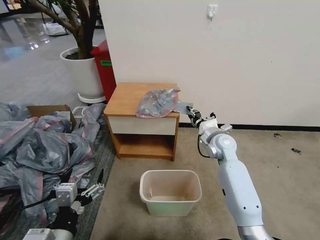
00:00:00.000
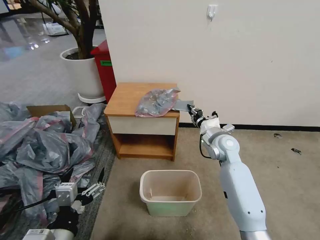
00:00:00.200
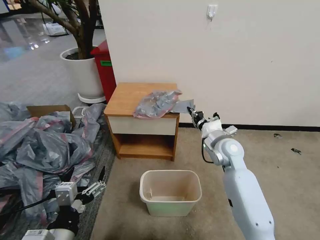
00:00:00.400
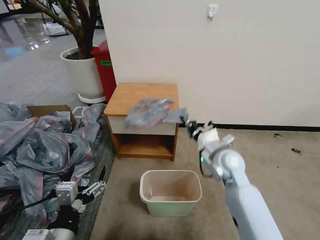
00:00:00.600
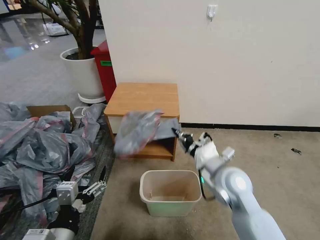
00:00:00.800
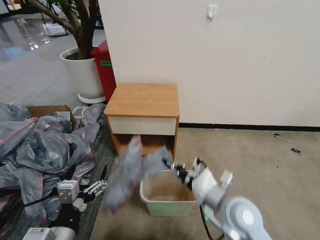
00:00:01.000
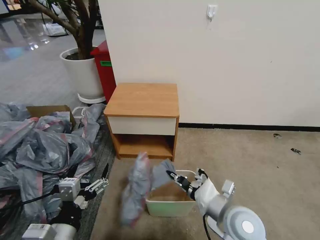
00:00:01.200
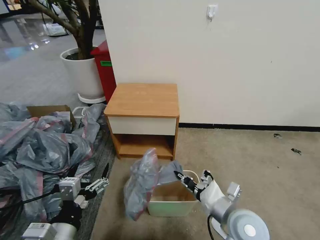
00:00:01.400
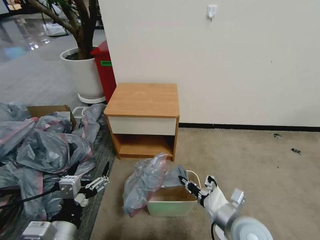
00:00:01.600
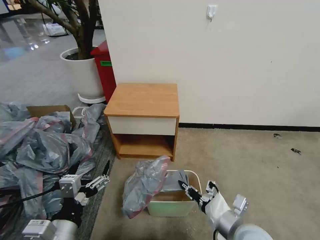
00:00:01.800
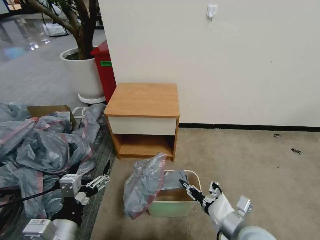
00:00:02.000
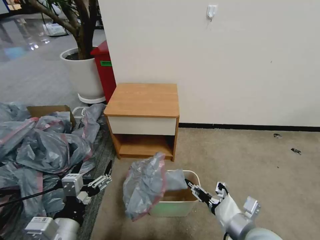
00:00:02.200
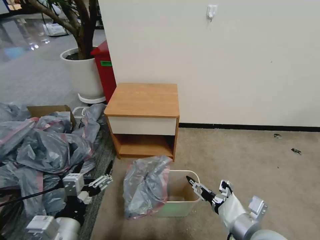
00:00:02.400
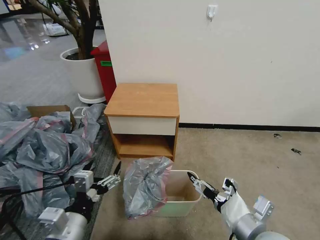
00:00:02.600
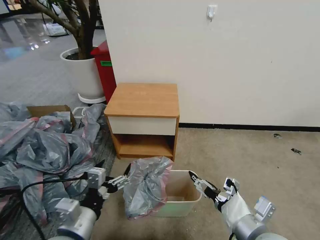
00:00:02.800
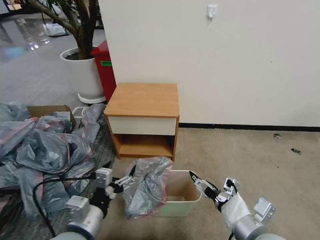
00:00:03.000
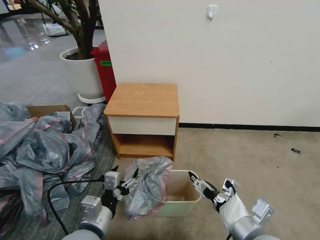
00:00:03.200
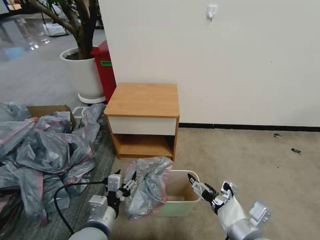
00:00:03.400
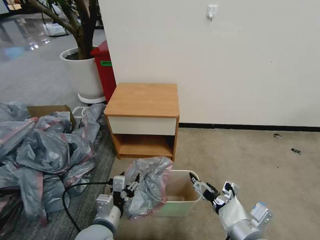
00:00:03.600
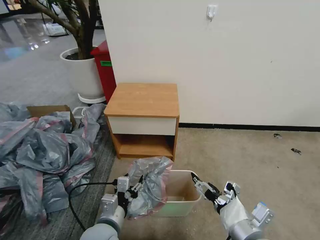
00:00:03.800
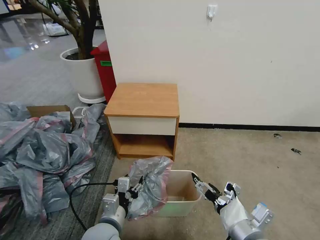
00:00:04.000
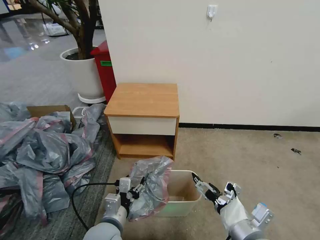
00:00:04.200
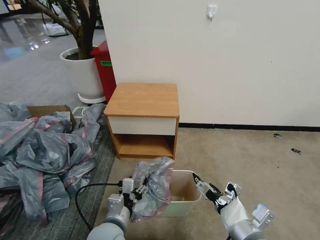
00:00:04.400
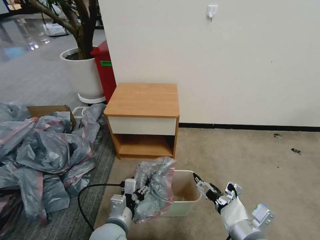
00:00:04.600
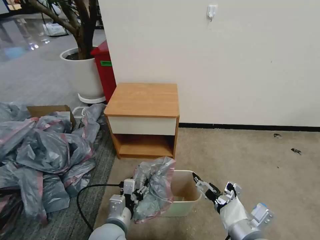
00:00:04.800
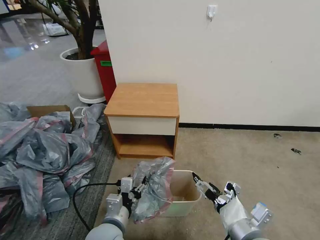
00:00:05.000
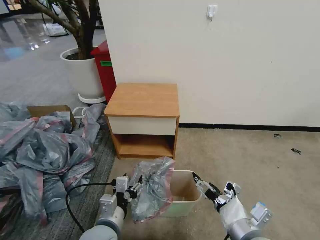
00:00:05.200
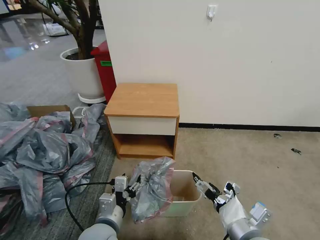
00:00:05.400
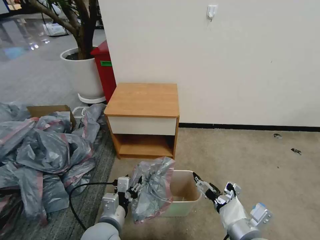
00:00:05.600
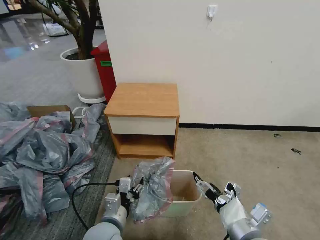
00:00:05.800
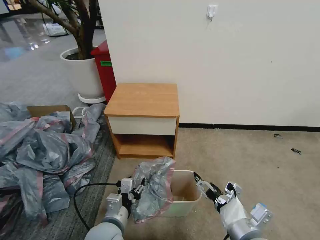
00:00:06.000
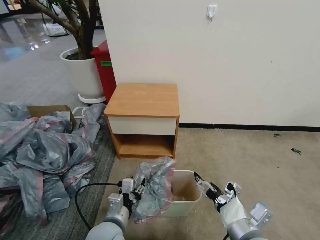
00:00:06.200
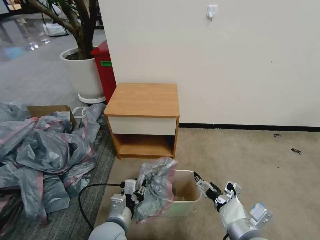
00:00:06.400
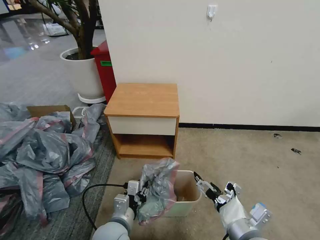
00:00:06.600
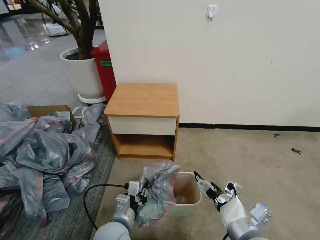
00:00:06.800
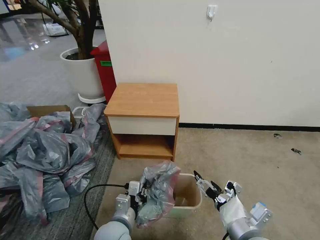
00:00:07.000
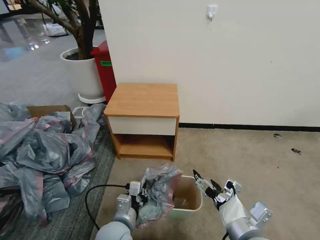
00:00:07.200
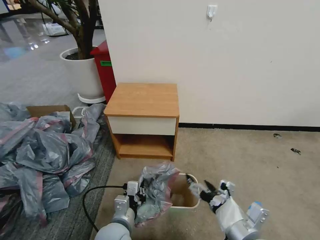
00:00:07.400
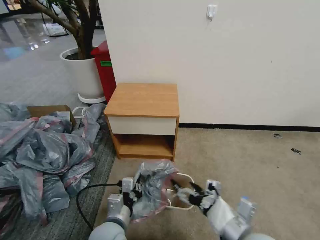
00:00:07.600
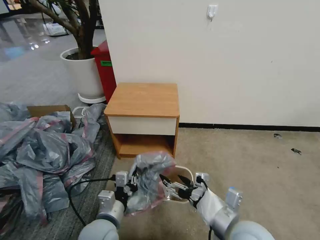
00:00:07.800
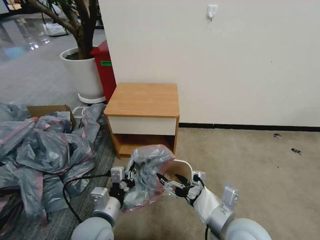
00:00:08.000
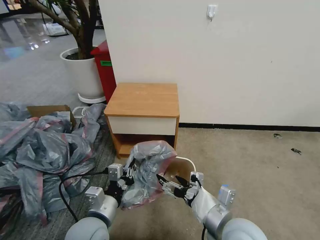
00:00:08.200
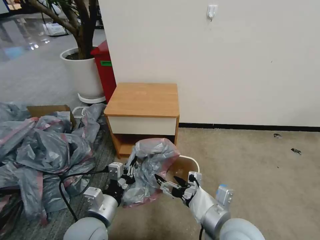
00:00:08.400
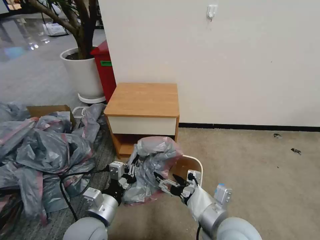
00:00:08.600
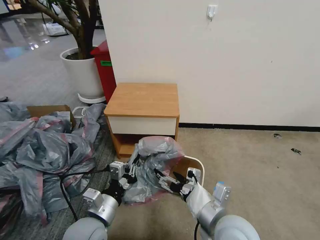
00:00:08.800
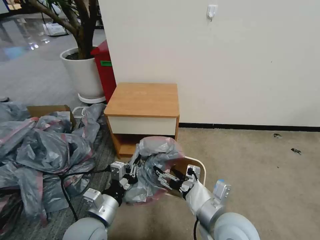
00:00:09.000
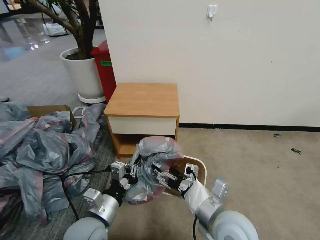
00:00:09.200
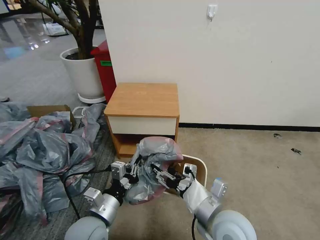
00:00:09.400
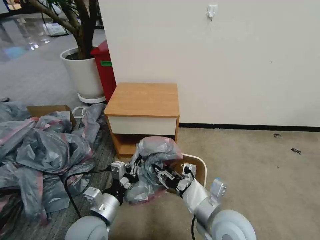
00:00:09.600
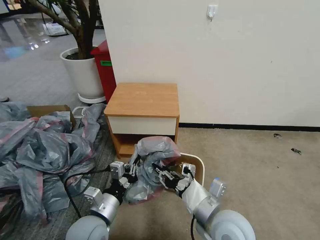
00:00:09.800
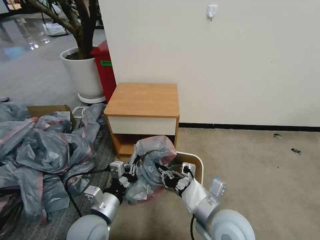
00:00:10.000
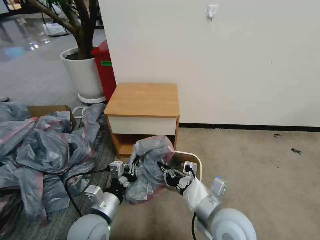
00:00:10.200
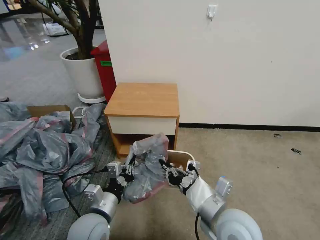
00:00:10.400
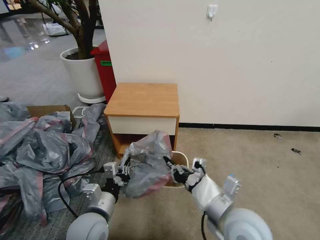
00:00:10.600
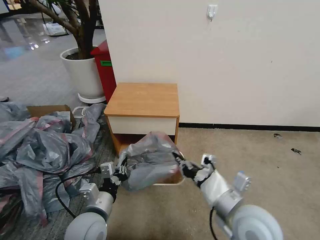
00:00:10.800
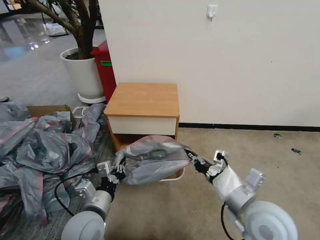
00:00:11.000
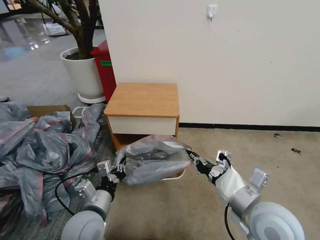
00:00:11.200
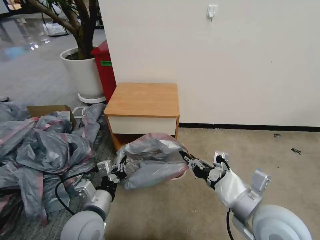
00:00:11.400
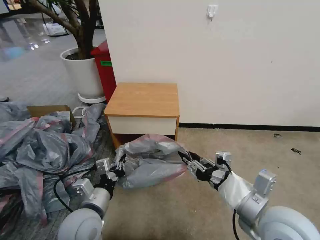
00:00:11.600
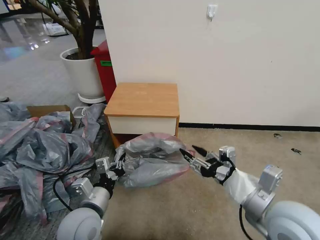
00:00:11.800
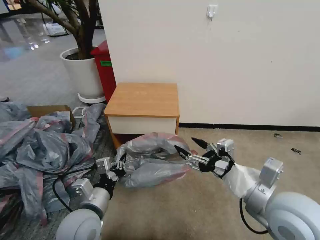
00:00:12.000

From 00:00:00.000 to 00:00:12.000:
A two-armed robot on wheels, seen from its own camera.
Task of the whole recording: Pick up the garbage bag from the table and place it over the trash can.
From 00:00:00.000 to 00:00:01.600: The right gripper travels backward by about 30 cm, and closes up.
From 00:00:01.600 to 00:00:03.000: The right gripper goes about 5 cm upward, and opens its fingers. The left gripper changes place by some 5 cm.
From 00:00:03.000 to 00:00:04.400: The left gripper shifts about 10 cm downward and to the right.
From 00:00:04.400 to 00:00:06.000: The grippers make only small movements.
From 00:00:06.000 to 00:00:07.600: The left gripper closes up.
From 00:00:07.600 to 00:00:09.000: The left gripper moves upward, roughly 5 cm. The right gripper is displaced to the left by about 5 cm.
From 00:00:09.000 to 00:00:10.400: The right gripper closes.
From 00:00:10.400 to 00:00:12.000: The right gripper is displaced to the right and upward by some 10 cm, and opens.

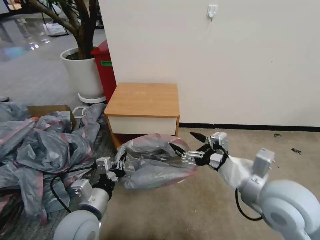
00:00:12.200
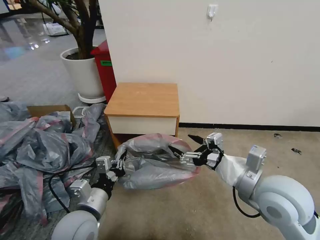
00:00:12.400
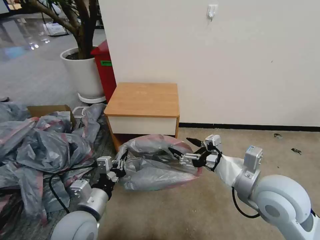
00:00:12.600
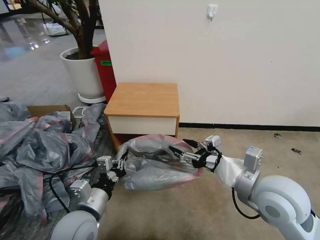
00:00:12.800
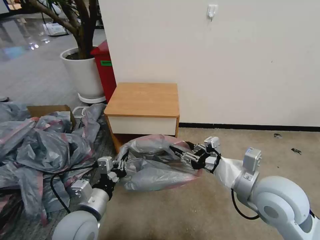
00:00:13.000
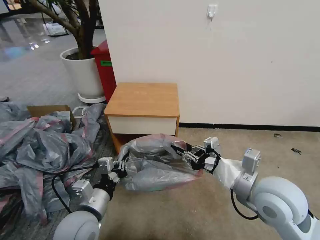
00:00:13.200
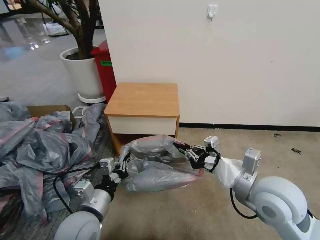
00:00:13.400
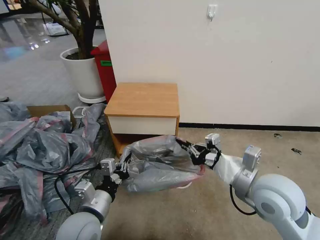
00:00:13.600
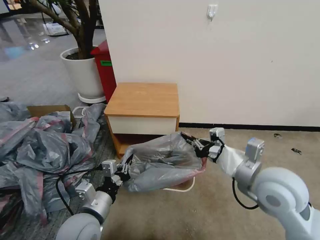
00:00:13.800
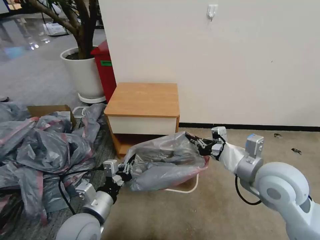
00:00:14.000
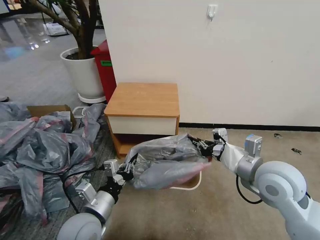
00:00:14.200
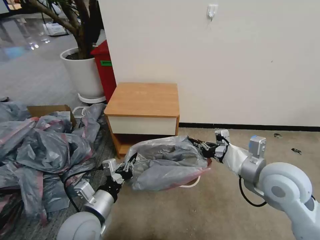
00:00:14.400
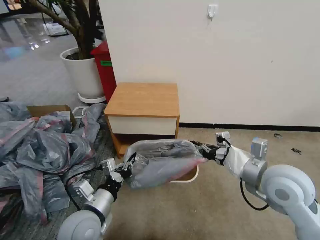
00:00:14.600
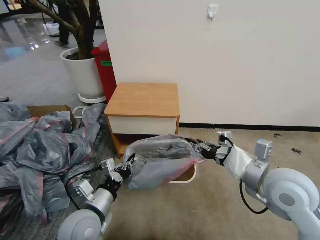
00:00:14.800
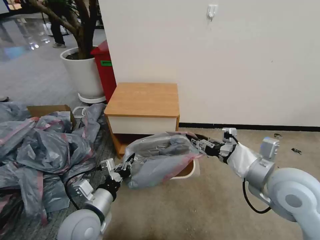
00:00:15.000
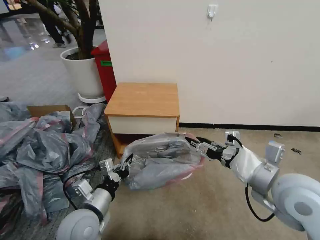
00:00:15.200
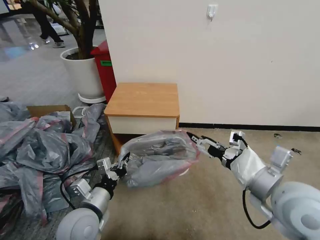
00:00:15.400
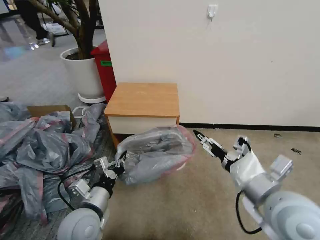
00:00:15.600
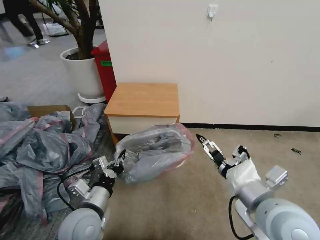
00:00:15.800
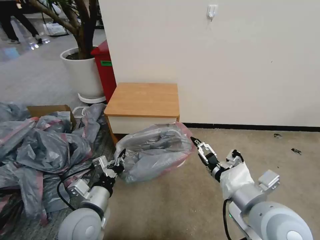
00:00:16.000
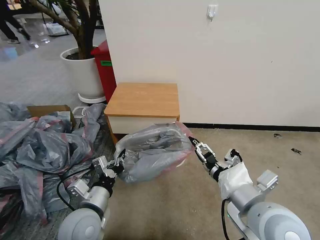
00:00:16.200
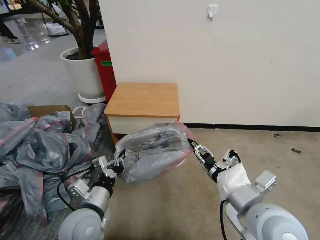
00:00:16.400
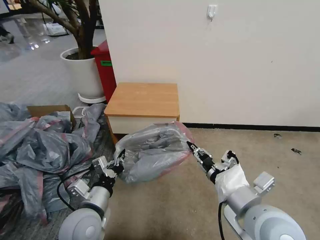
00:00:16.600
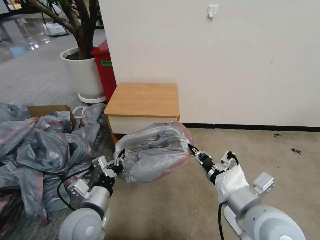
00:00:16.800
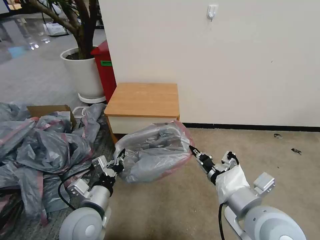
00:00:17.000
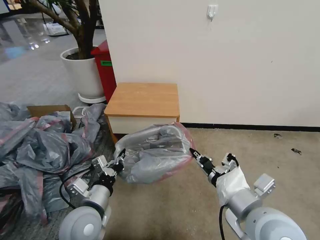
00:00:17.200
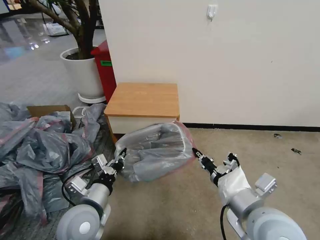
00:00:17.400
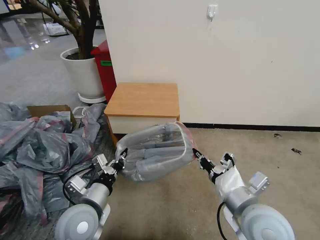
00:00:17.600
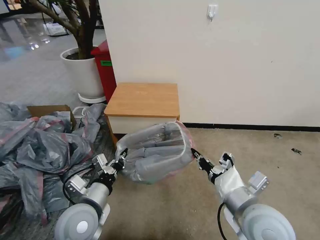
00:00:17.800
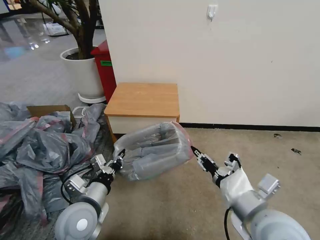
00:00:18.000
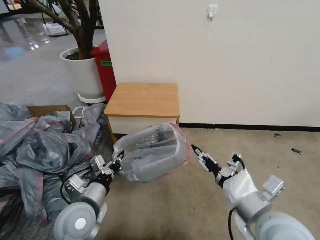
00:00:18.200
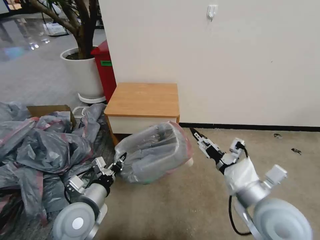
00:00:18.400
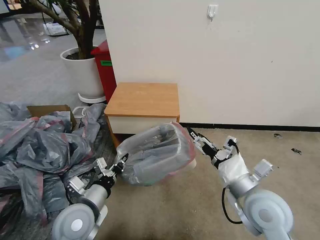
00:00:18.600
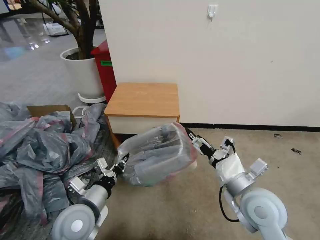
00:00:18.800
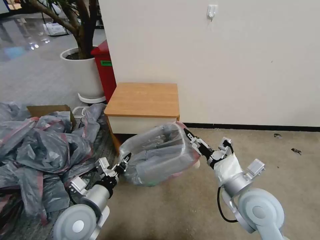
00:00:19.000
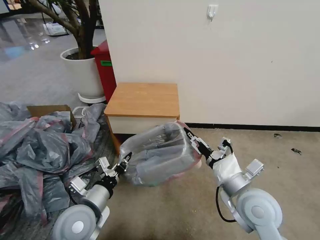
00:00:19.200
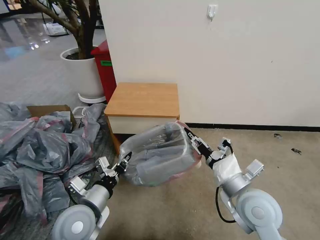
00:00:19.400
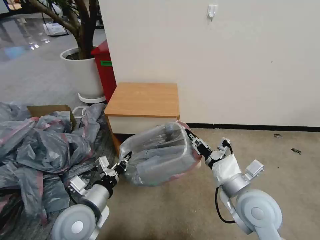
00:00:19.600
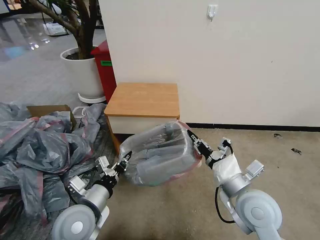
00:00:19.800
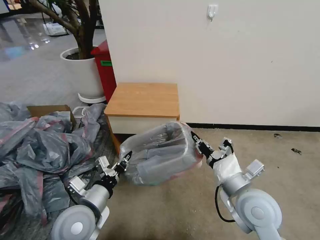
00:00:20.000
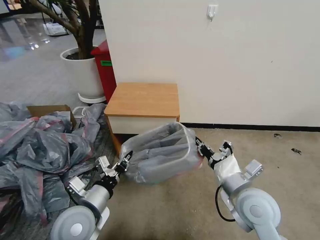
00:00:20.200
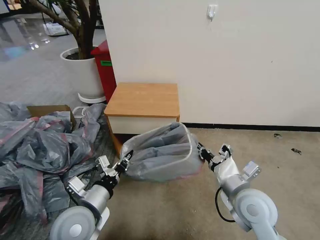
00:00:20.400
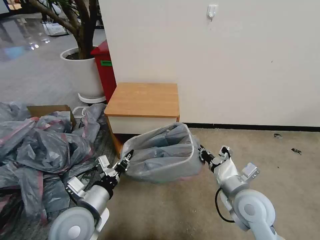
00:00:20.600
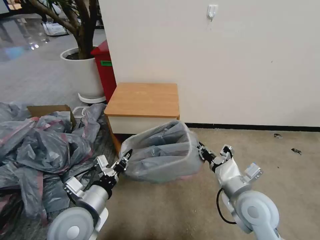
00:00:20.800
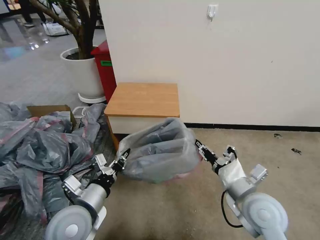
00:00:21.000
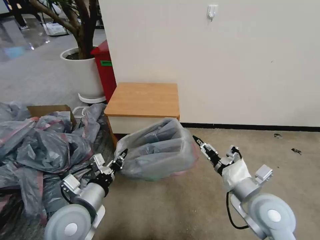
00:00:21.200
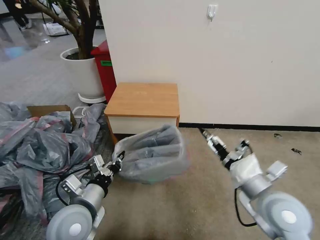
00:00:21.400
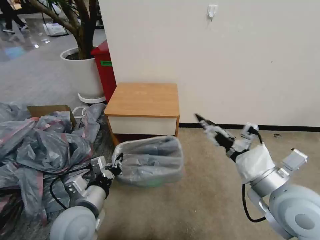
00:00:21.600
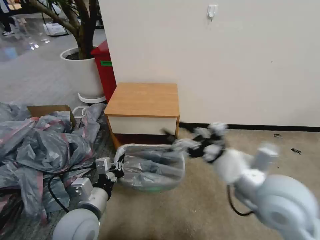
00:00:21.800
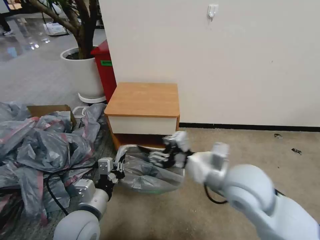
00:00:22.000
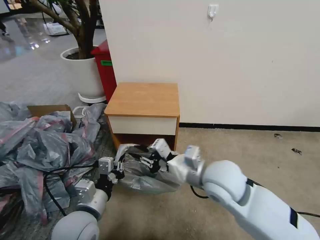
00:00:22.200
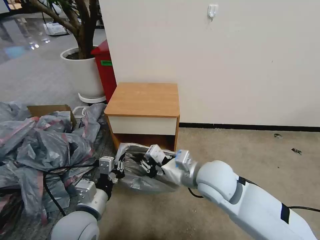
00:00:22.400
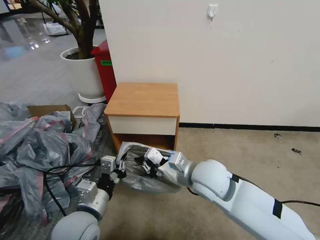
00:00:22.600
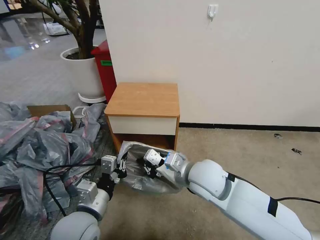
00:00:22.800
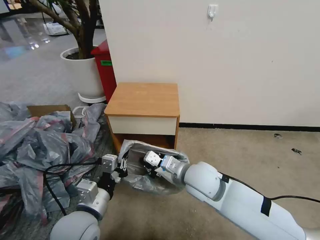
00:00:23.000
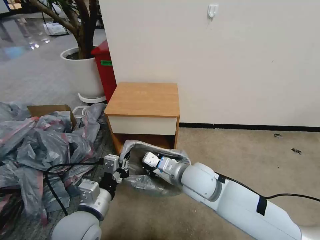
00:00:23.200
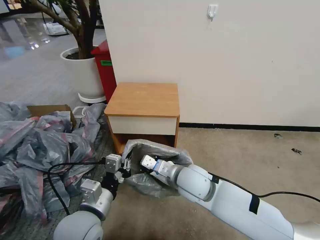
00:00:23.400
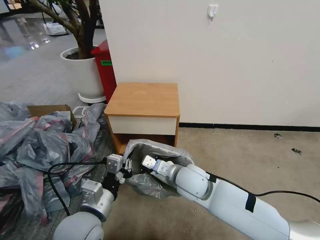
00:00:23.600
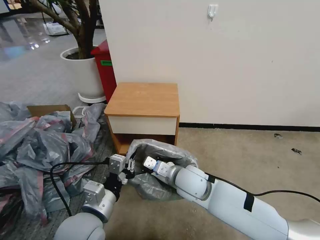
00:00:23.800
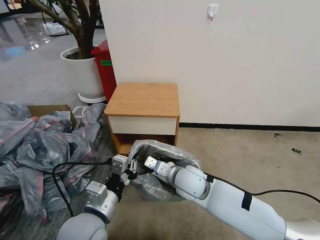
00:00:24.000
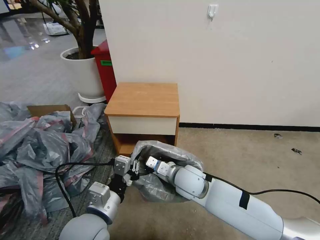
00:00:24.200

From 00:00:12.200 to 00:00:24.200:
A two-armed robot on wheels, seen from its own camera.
Task of the whole recording: Pick up the garbage bag from the table and place it over the trash can.
From 00:00:12.200 to 00:00:13.800: The right gripper closes.
From 00:00:13.800 to 00:00:15.200: The right gripper opens its fingers.
From 00:00:15.200 to 00:00:16.600: The right gripper heads to the left and backward, covering some 10 cm, and opens and closes again.
From 00:00:16.600 to 00:00:18.200: There are only small adjustments of the grippers.
From 00:00:18.200 to 00:00:19.800: The right gripper is displaced forward by approximately 5 cm, and opens and closes again.
From 00:00:19.800 to 00:00:21.200: The right gripper opens up.
From 00:00:21.200 to 00:00:22.600: The right gripper is displaced to the left and forward by approximately 15 cm, and closes.
From 00:00:22.600 to 00:00:24.200: The right gripper heads downward, covering some 10 cm.
